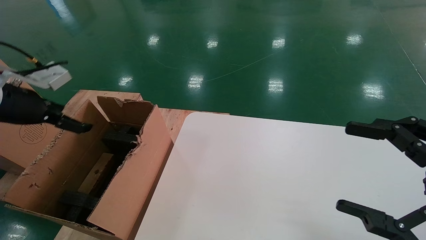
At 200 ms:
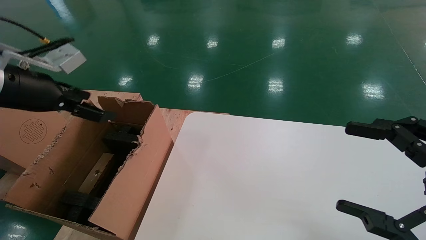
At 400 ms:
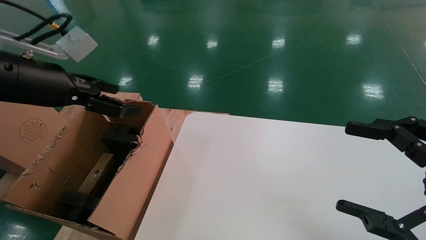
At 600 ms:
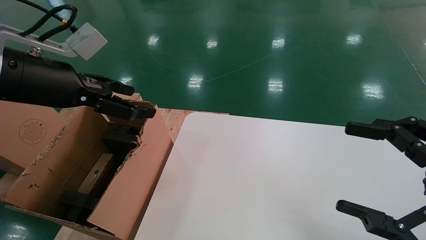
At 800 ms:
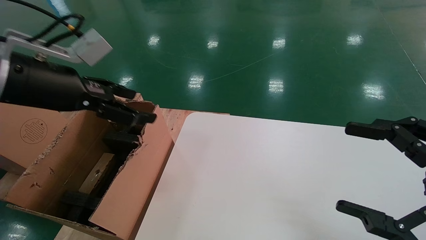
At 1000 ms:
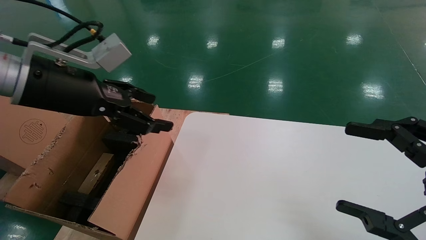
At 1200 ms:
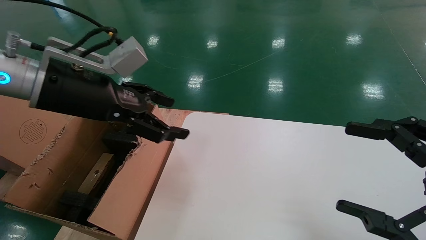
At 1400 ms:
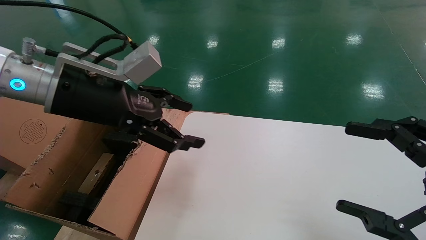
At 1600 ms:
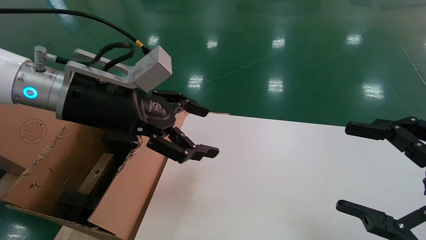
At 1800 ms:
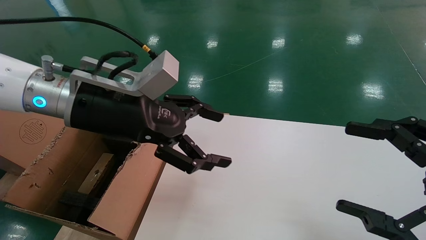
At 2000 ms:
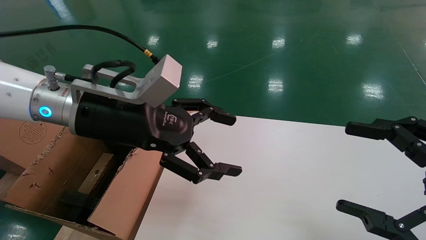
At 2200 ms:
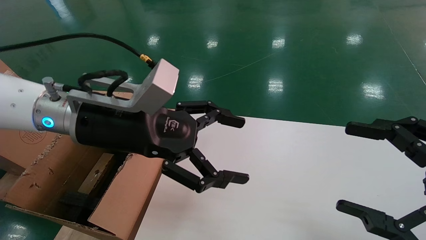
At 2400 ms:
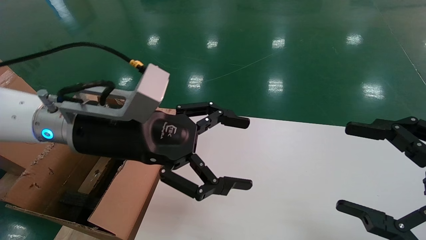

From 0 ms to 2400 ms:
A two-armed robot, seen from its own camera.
Task of the whole recording: put the box on the table into the big box.
From 0 ms to 1200 ms: The left gripper goes some 15 cm to the right.
From 1200 ms to 2400 ms: The left gripper shifts about 10 cm to the right and downward.
